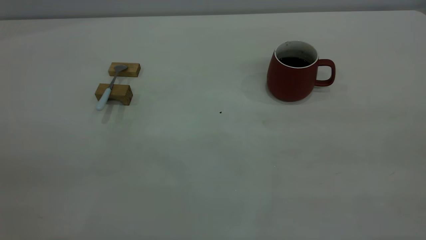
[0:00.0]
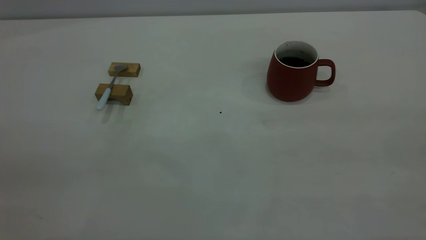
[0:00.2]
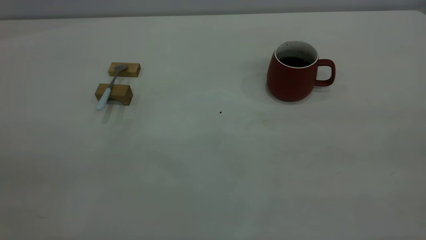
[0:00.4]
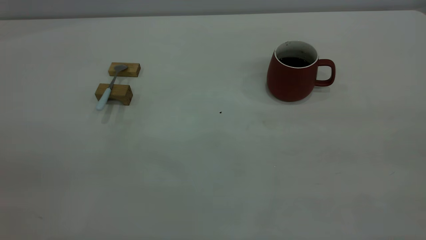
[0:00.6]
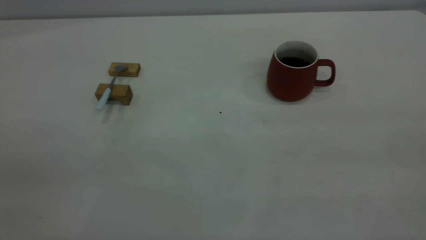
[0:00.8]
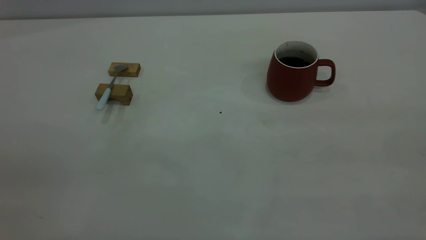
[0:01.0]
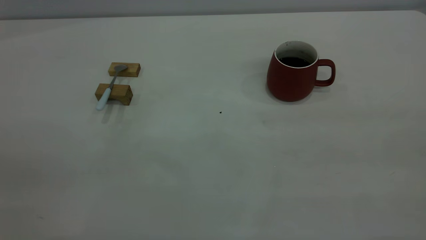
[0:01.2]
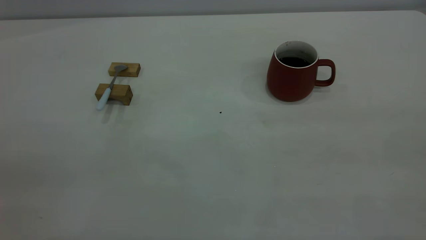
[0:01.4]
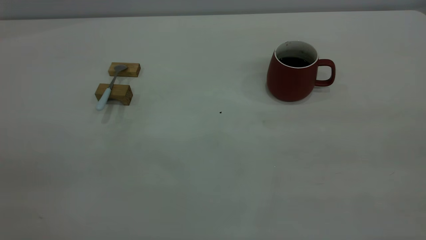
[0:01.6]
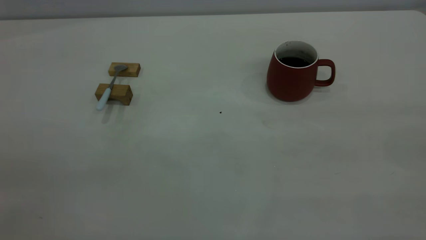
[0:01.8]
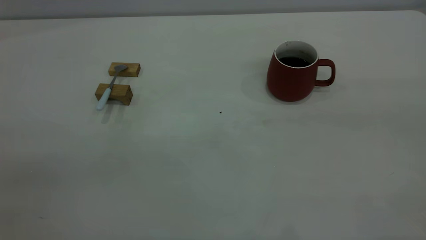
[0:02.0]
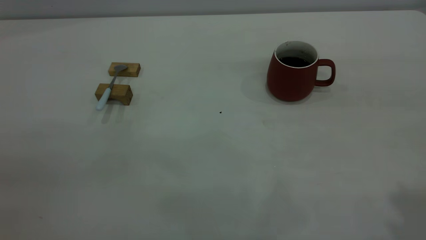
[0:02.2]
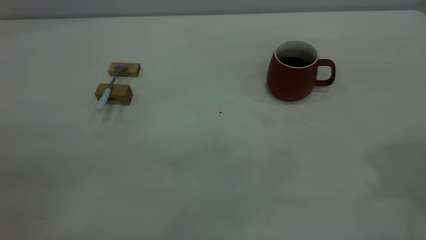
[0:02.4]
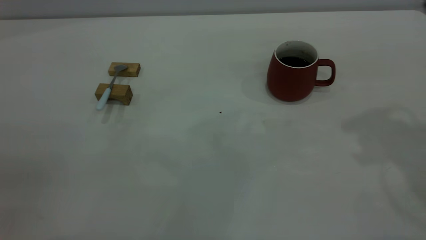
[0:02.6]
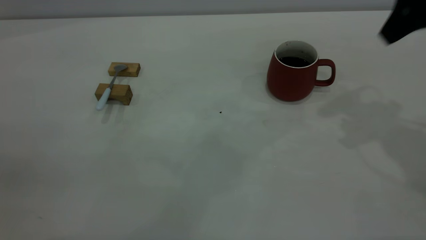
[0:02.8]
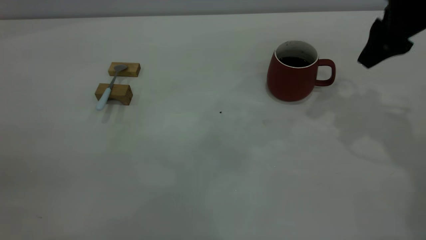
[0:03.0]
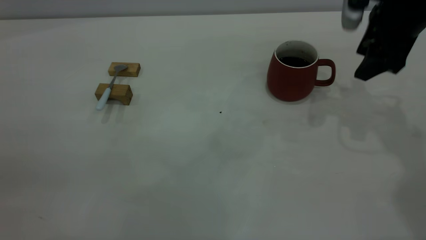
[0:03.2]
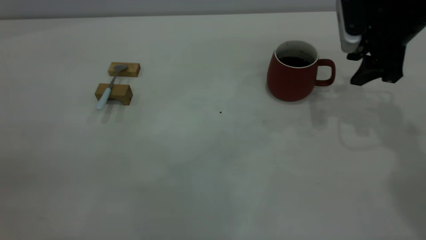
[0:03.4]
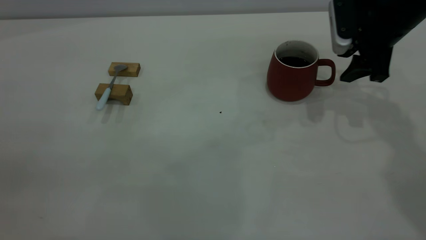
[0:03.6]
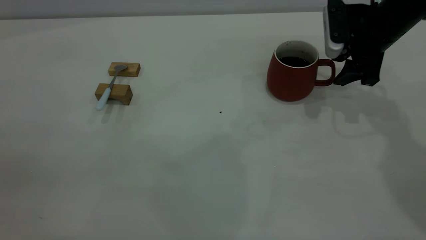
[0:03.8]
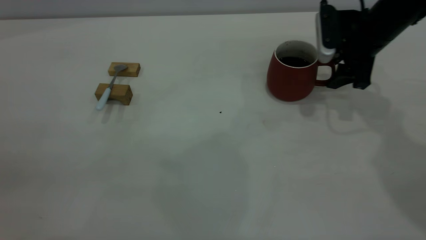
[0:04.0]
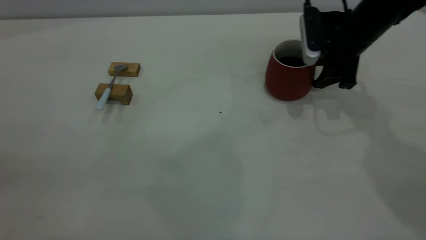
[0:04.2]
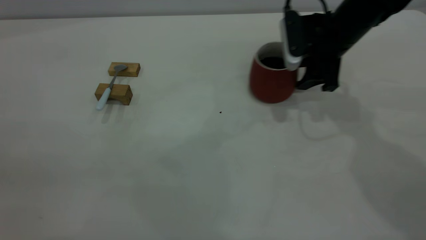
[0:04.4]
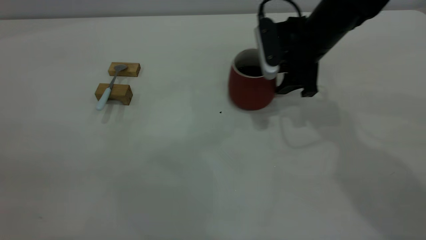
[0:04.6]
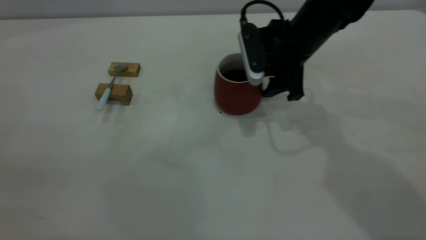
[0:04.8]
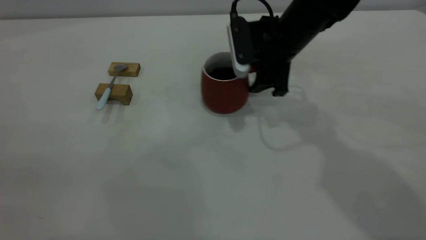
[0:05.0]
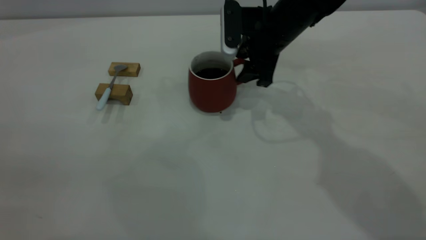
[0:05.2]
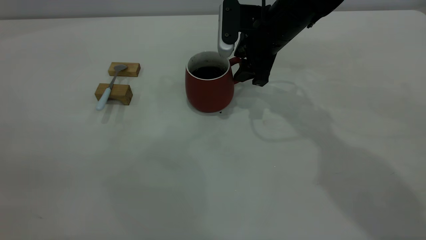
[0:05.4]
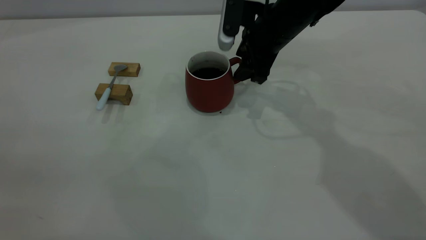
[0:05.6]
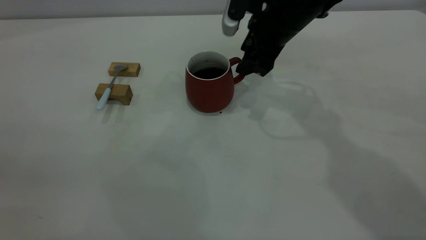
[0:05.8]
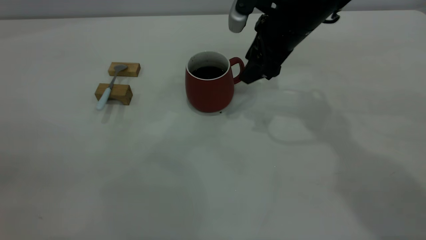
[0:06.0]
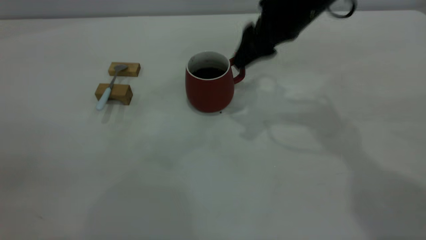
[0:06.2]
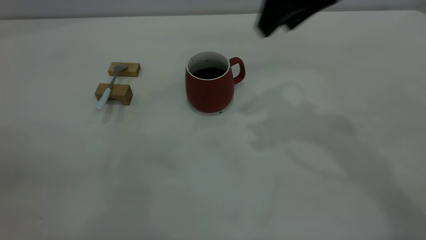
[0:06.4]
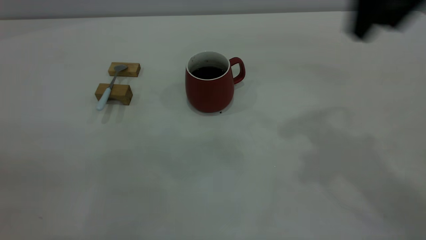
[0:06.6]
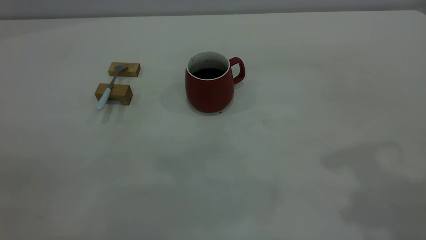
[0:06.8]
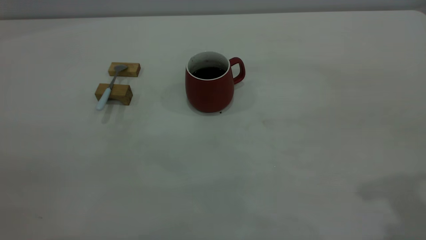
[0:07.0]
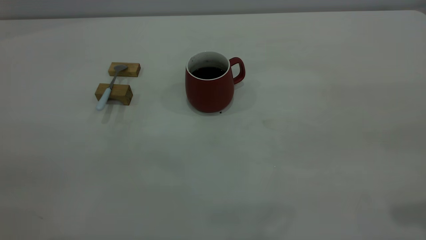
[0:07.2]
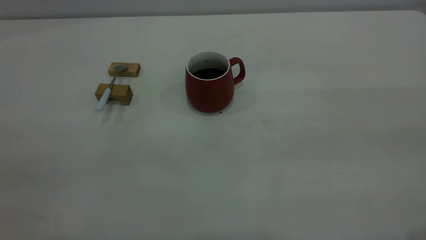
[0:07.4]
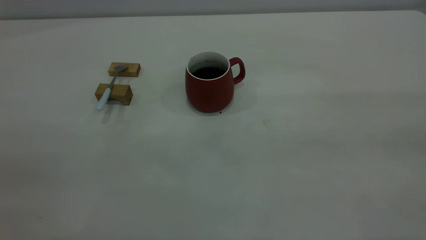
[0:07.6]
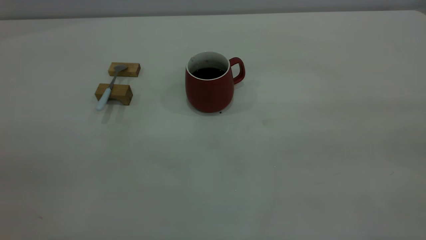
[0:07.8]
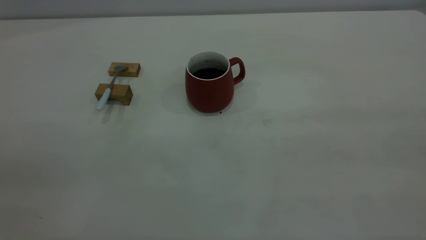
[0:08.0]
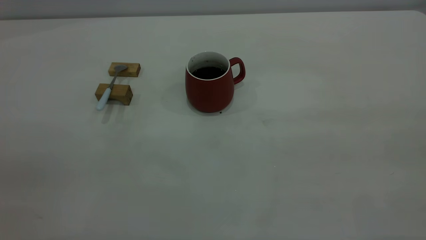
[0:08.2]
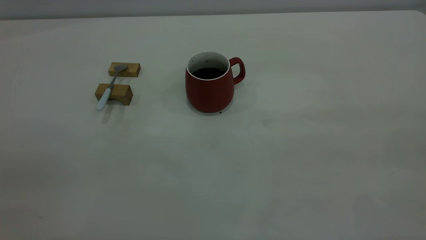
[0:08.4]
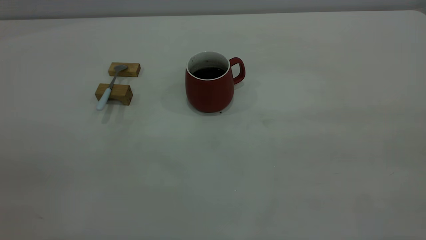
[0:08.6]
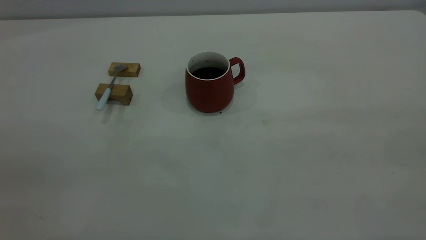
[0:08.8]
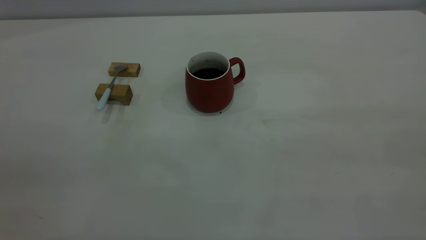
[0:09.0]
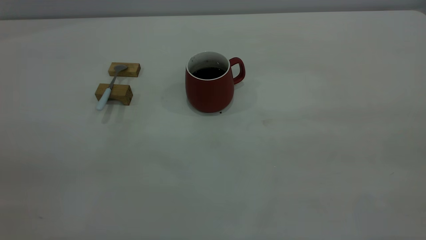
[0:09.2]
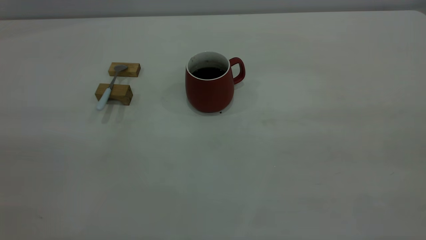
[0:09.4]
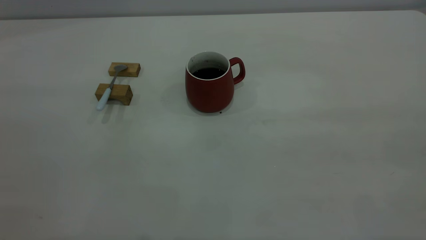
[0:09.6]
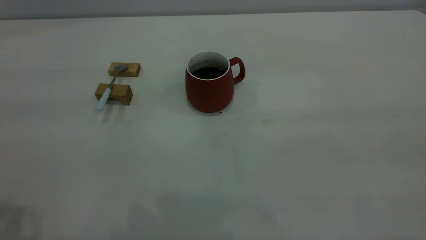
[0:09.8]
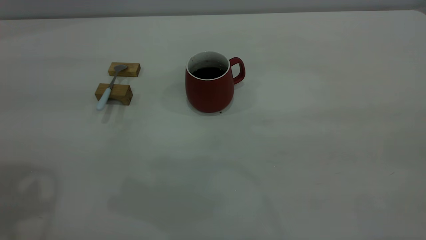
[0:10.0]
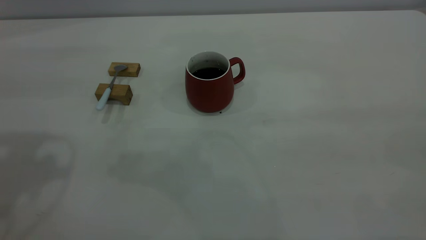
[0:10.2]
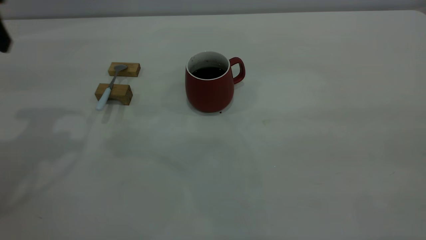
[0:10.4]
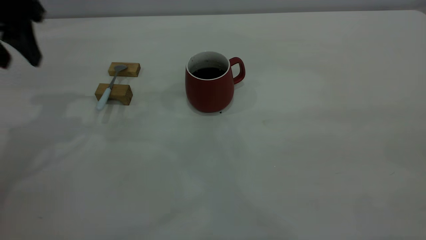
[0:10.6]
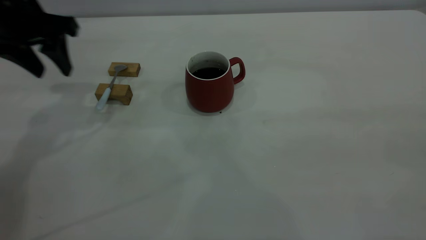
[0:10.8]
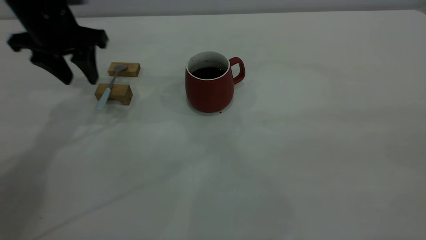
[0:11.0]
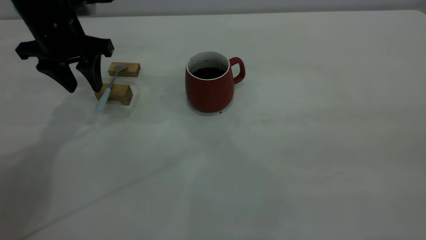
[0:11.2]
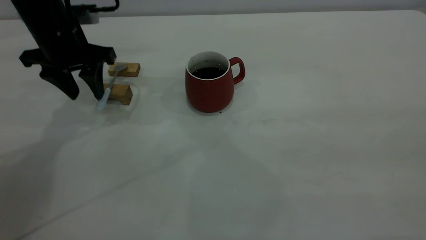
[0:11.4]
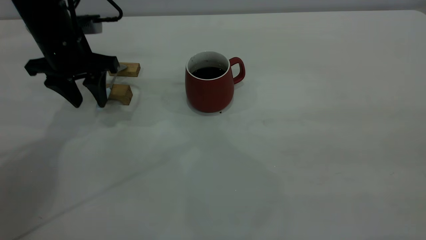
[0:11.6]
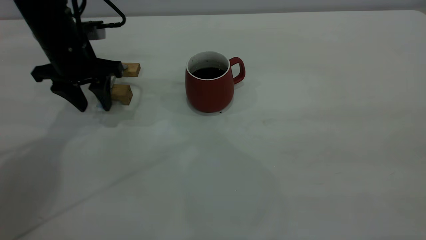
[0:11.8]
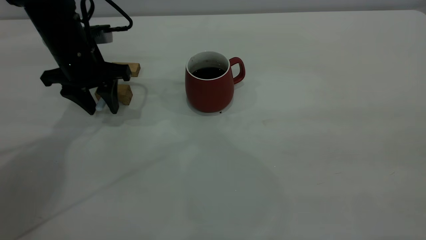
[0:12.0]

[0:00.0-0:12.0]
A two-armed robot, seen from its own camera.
Step, 0:00.0 to 0:06.2: Move the cup with coffee to the center of view.
0:00.0 to 0:01.6: Both grippers stay put.
0:01.6 to 0:03.0: The right gripper is displaced forward and downward by about 40 cm.
0:03.0 to 0:04.4: The right gripper is displaced downward, to the left and forward by roughly 15 cm.
0:04.4 to 0:06.0: The right gripper heads to the left, covering about 5 cm.
0:06.0 to 0:07.6: The right gripper heads backward, upward and to the right, covering roughly 50 cm.
0:10.4 to 0:12.0: The left gripper heads downward and forward, covering approximately 20 cm.

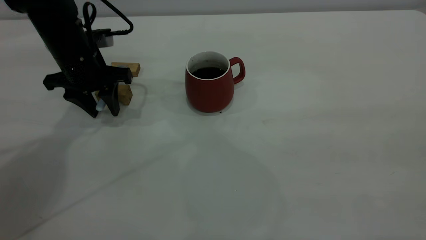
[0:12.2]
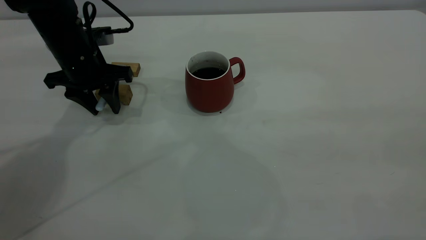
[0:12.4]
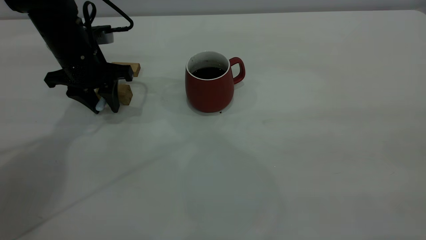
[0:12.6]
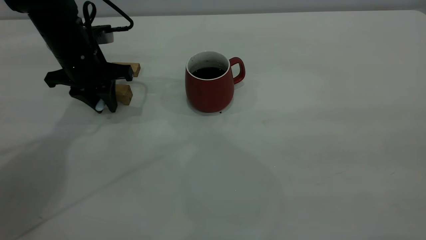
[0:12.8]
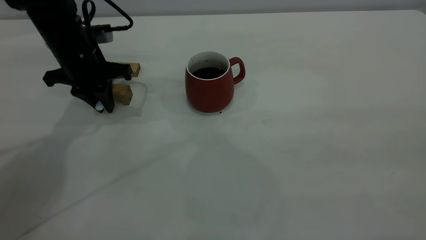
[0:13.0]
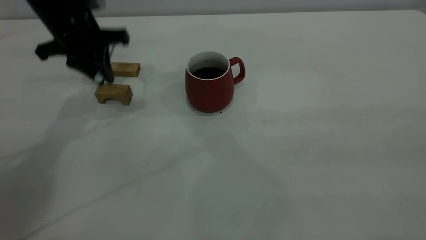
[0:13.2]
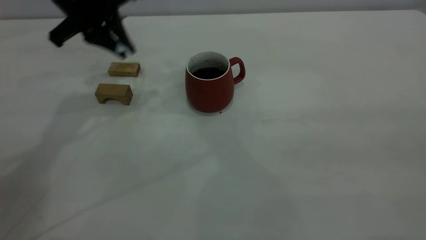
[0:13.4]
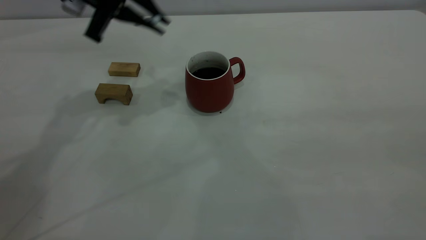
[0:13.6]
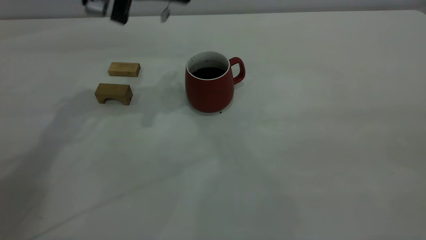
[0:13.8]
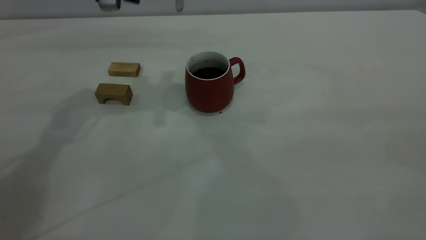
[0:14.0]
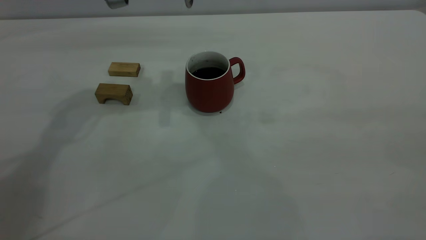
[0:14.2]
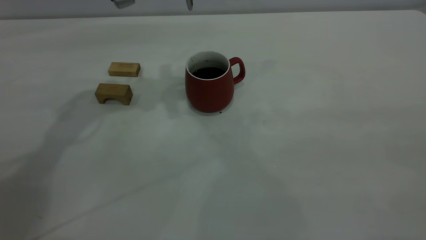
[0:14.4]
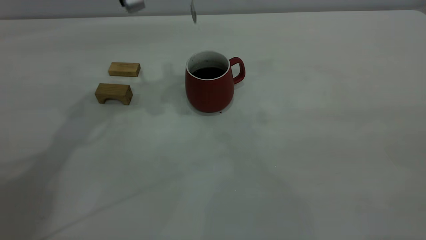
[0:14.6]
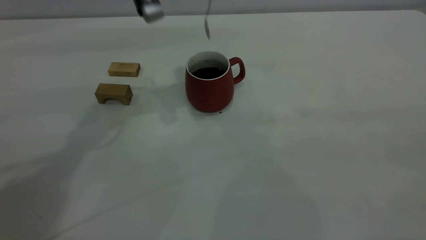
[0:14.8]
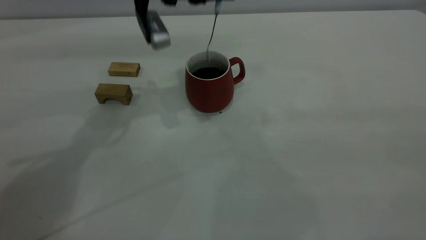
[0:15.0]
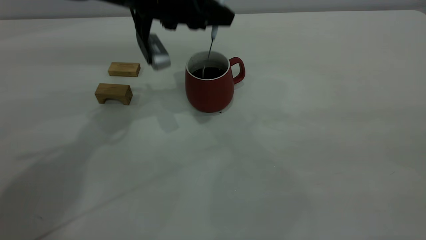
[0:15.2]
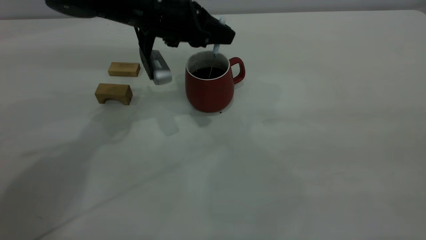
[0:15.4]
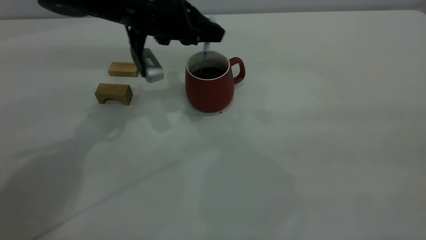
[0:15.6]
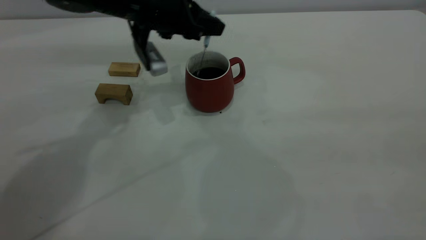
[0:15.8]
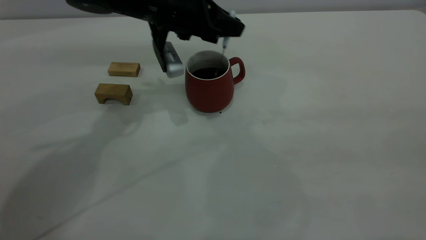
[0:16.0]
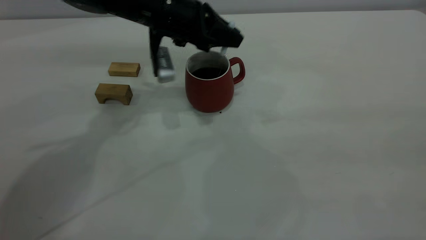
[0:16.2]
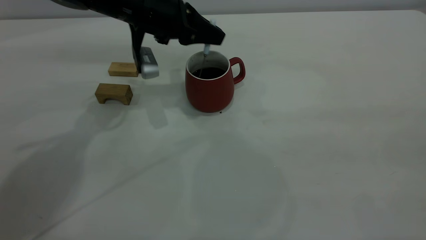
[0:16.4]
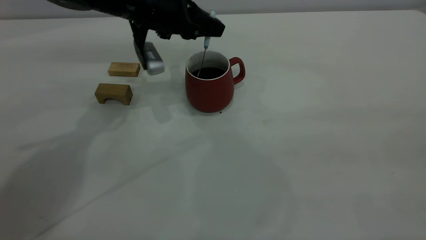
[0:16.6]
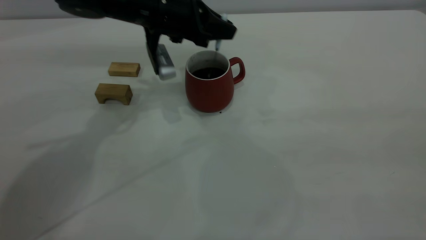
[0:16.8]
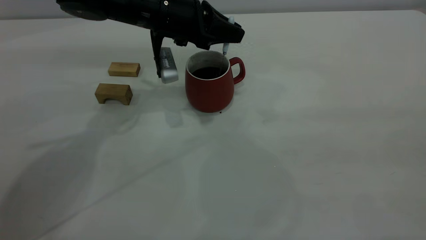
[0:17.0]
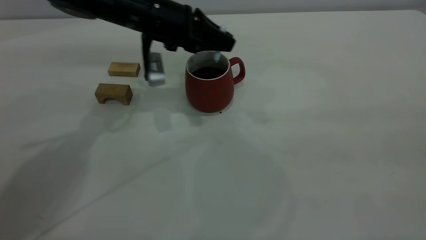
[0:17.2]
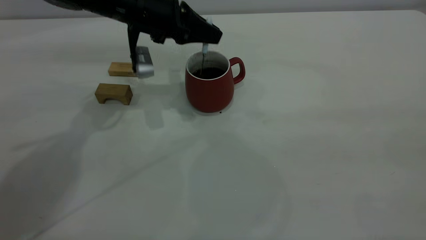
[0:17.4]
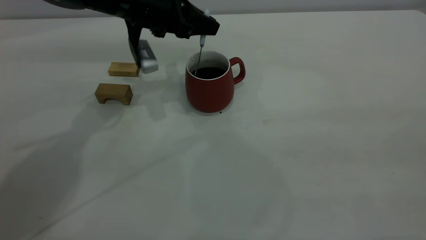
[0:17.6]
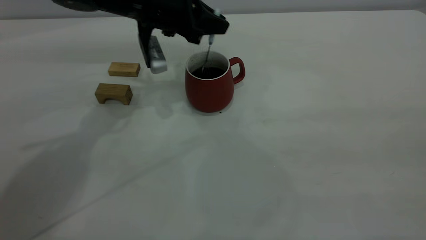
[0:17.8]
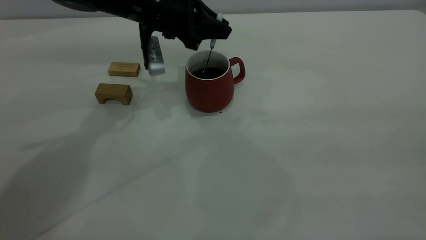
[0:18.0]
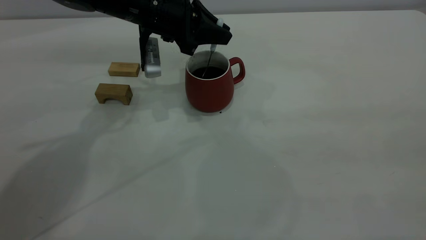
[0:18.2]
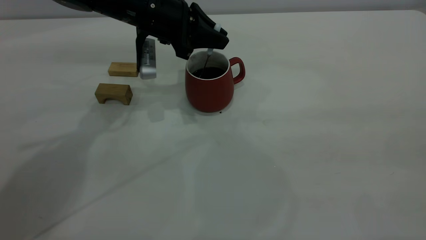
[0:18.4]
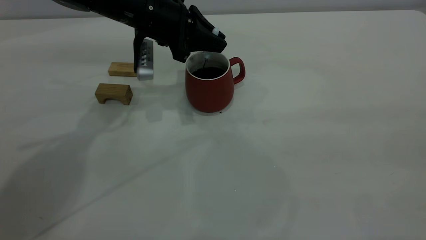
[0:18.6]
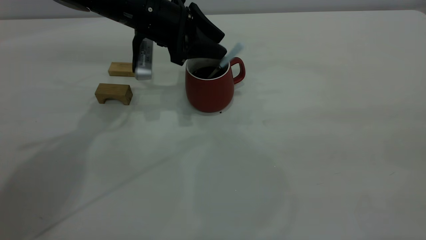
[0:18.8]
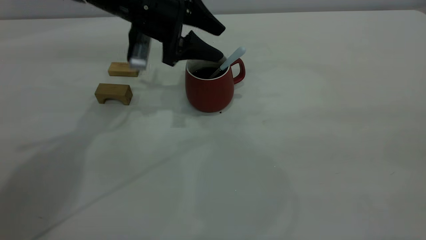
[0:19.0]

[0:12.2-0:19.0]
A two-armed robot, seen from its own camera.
0:12.2 to 0:13.6: The left gripper goes some 10 cm upward, and closes.
0:13.6 to 0:15.0: The left gripper moves to the right, approximately 5 cm.
0:15.0 to 0:16.2: The left gripper shifts roughly 5 cm downward.
0:16.2 to 0:17.6: There are only small adjustments of the grippers.
0:17.6 to 0:19.0: The left gripper opens up.
